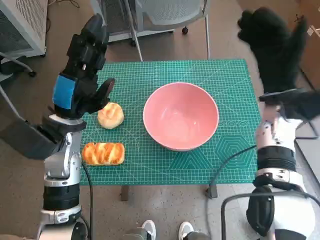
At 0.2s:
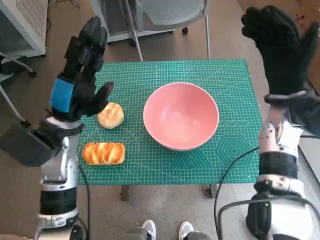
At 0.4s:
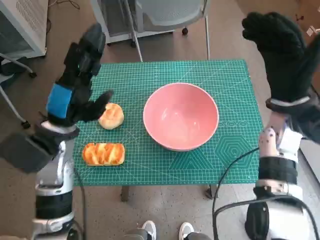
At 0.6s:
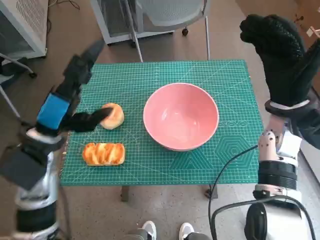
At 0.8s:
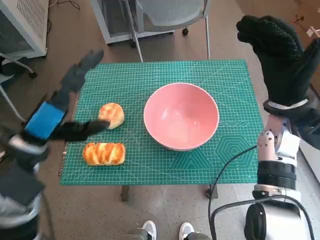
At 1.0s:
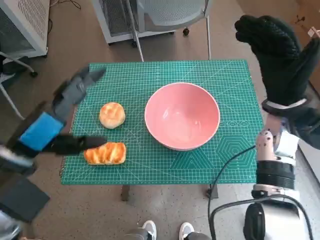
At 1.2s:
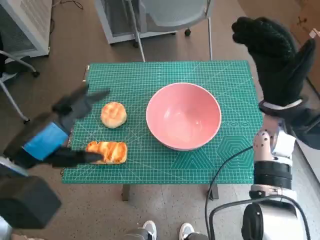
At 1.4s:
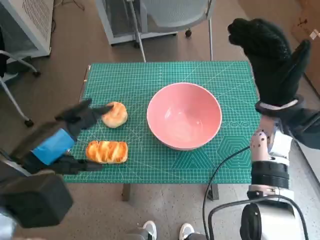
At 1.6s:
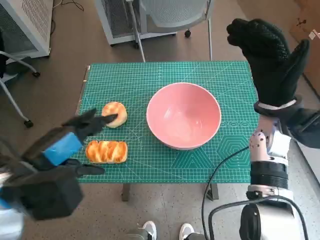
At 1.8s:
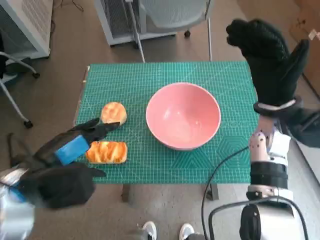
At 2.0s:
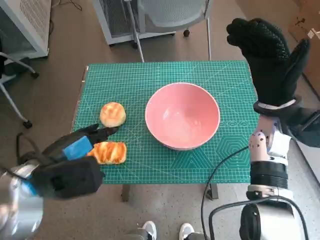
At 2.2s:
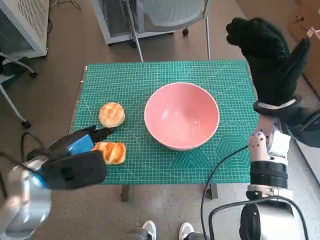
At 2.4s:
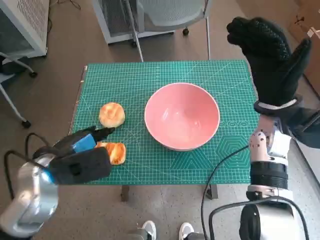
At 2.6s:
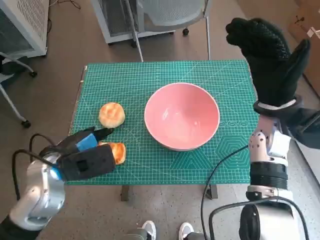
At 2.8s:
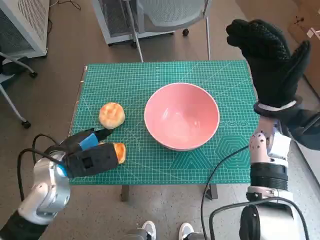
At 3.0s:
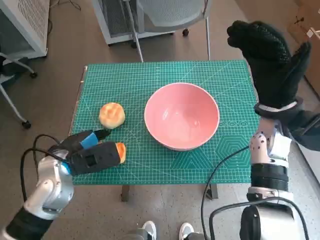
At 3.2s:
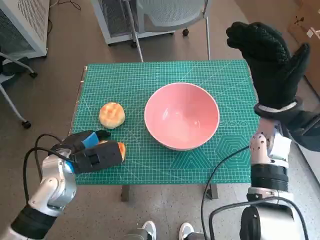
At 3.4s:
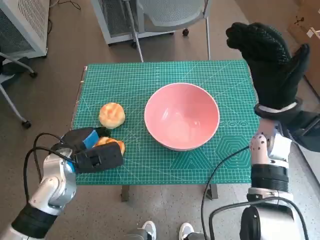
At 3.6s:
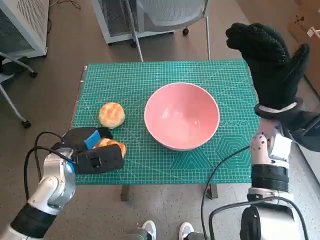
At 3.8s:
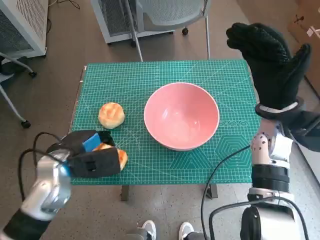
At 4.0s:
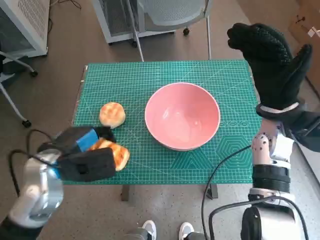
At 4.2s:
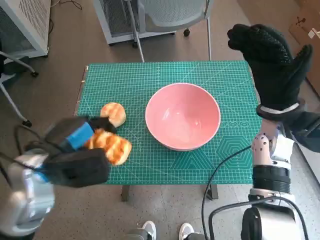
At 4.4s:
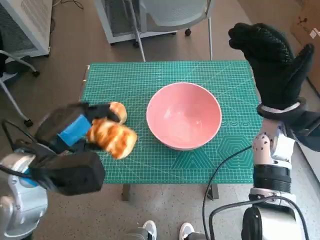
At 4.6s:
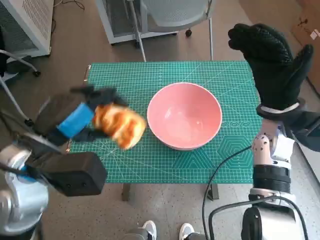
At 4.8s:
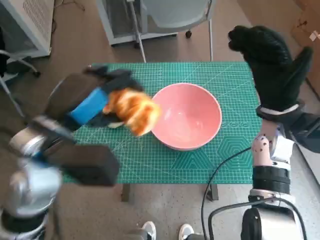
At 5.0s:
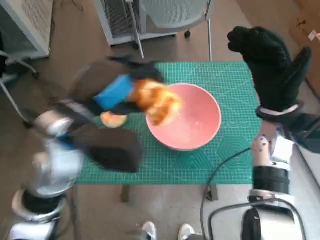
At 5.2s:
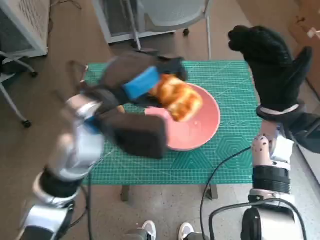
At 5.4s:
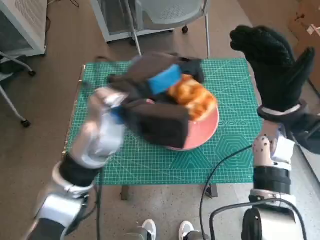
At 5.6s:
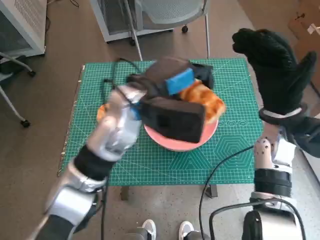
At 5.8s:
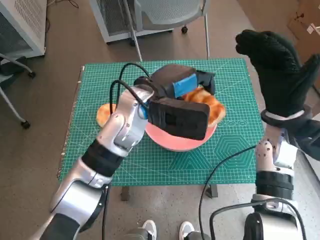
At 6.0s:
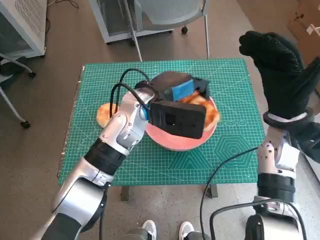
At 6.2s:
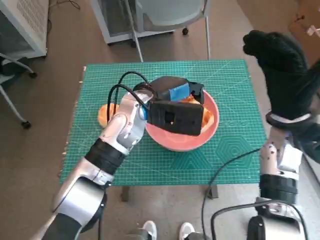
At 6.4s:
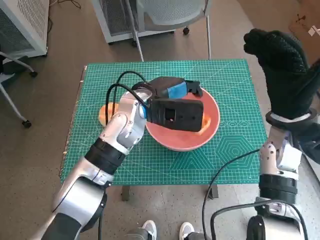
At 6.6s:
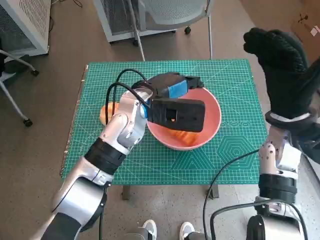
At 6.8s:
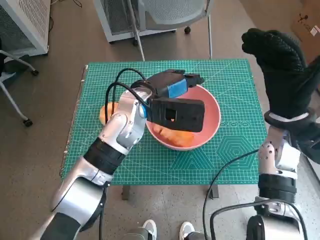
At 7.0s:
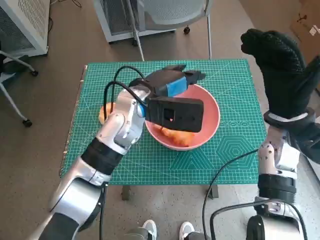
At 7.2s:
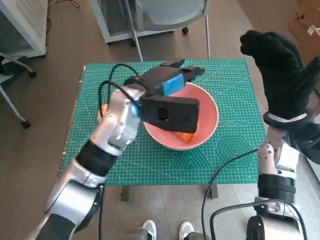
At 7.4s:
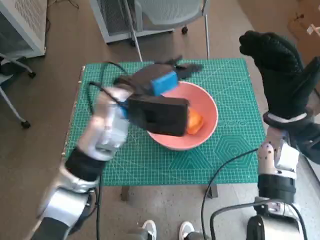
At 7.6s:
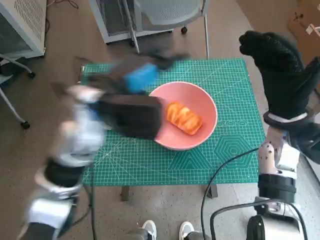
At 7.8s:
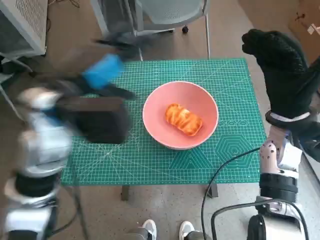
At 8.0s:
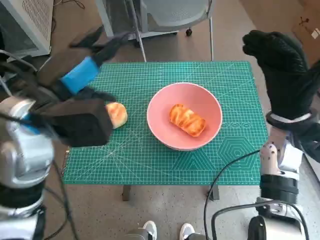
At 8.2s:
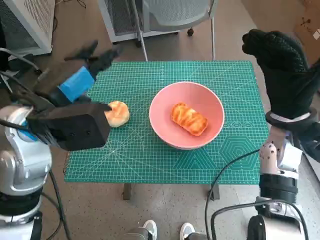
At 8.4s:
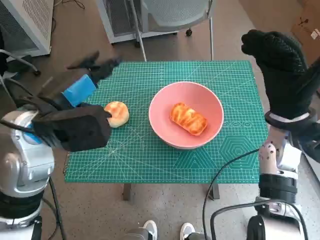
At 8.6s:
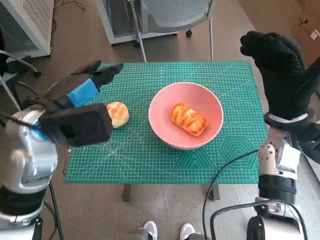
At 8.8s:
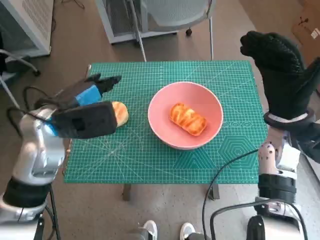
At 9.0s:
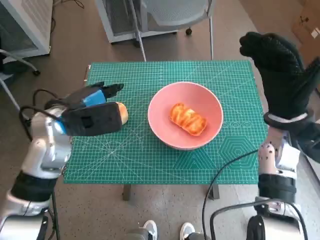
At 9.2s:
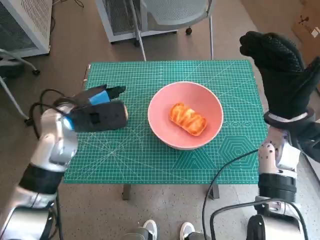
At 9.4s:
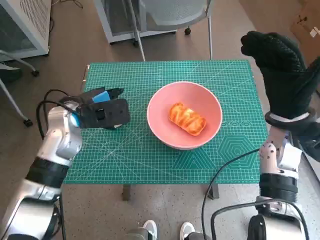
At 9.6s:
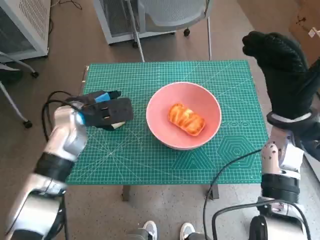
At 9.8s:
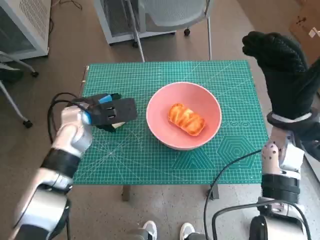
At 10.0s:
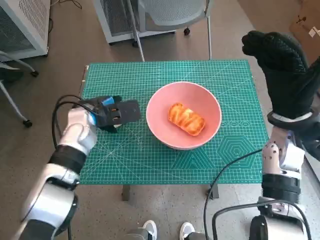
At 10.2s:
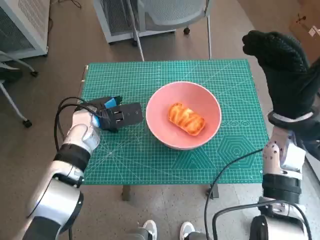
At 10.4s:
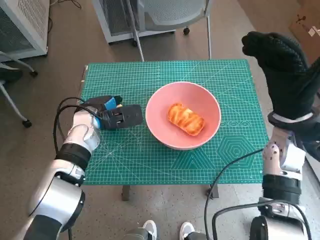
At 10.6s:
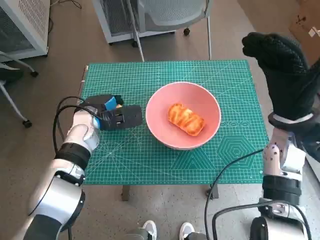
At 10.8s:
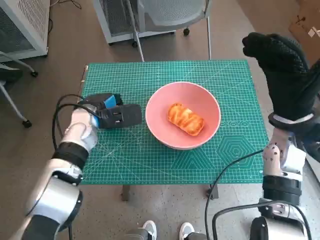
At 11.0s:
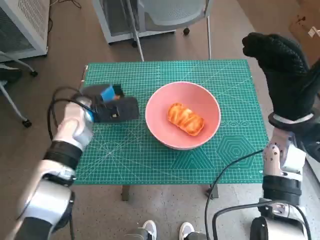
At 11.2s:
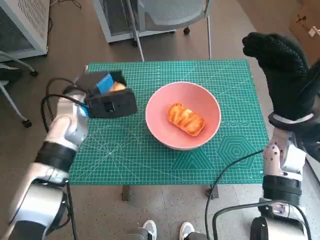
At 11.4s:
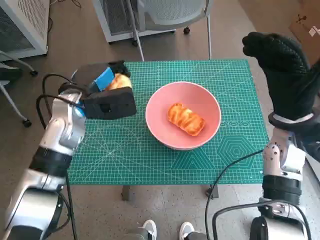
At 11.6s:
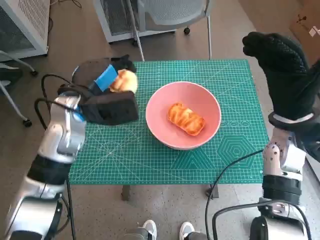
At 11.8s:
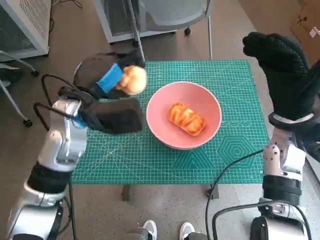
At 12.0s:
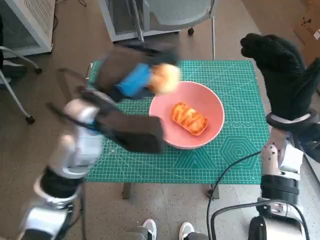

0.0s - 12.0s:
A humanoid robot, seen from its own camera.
Step, 0.0s - 3.2s: Grasp the long bread with left hand.
Step, 3.4s - 6.6s: Place the long bread in pink bowl with left hand.
Step, 6.8s - 10.6s: Grasp the round bread with left hand.
0.0s - 1.6s: The left hand shifts some 10 cm backward.
1.6s - 3.0s: The left hand heads downward and forward, covering about 10 cm.
3.0s - 4.4s: The left hand goes roughly 10 cm upward.
4.4s - 6.0s: The left hand heads to the right and forward, covering about 20 cm.
6.0s - 7.6s: The left hand is displaced to the left and upward by about 10 cm.
7.6s - 9.0s: The left hand is displaced to the left by approximately 10 cm.
9.0s - 10.4s: The left hand heads downward and forward, covering some 10 cm.
10.4s - 12.0s: The left hand heads upward, backward and to the right, covering some 15 cm.

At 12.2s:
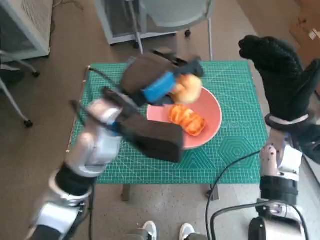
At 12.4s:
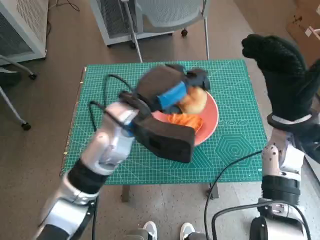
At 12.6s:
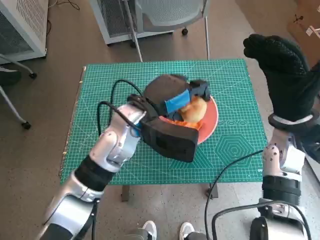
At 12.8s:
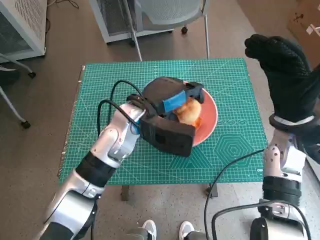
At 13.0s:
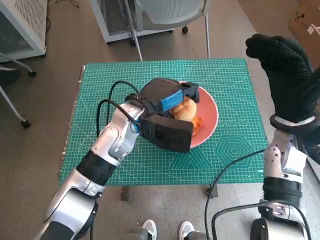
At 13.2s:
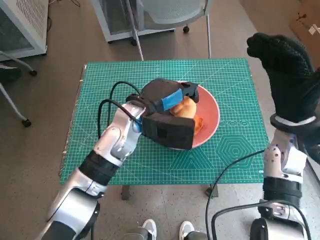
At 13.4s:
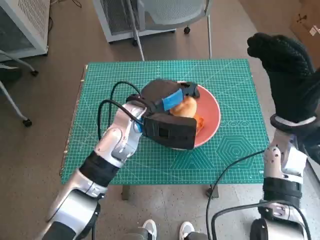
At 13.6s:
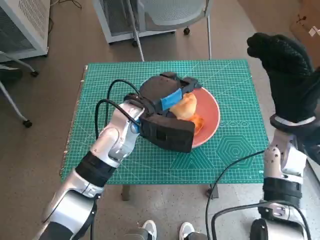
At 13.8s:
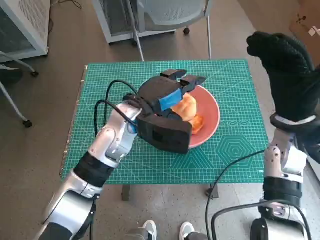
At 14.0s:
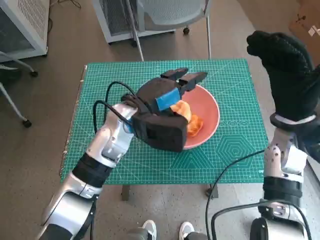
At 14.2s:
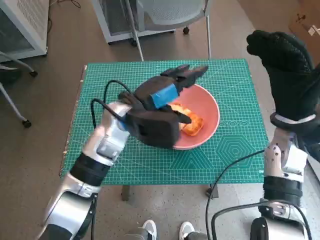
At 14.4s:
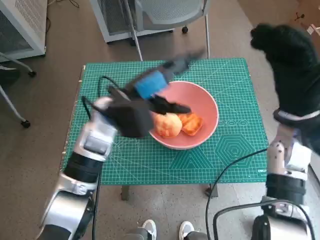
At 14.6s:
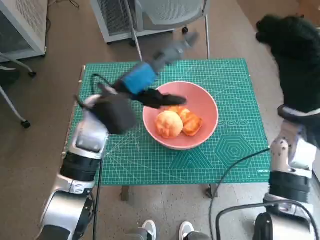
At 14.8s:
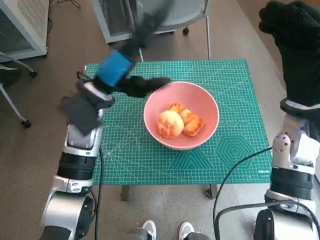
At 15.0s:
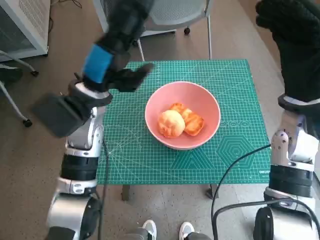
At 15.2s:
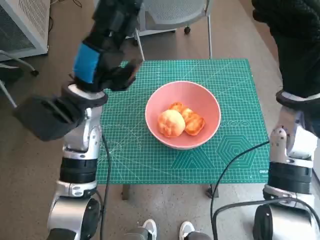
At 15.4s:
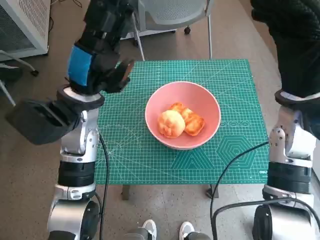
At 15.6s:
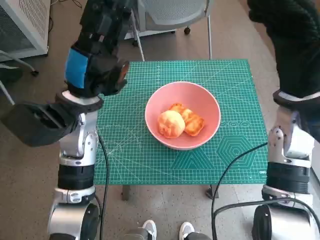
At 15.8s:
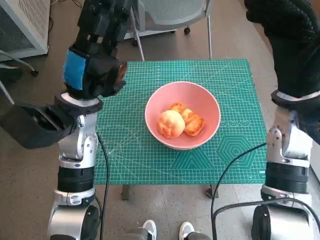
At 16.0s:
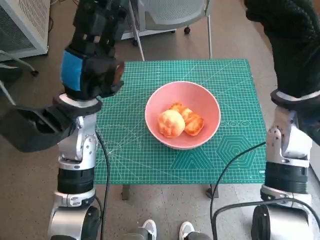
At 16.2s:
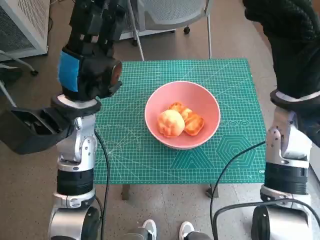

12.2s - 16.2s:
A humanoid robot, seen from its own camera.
Step, 12.2s - 13.8s: Place the round bread in pink bowl with left hand.
12.2s - 13.6s: The left hand goes about 5 cm downward.
13.6s - 14.8s: The left hand goes roughly 5 cm to the left.

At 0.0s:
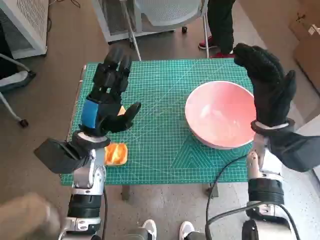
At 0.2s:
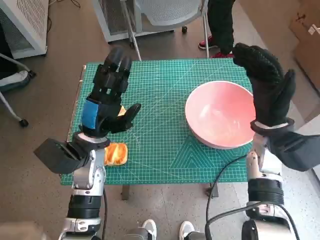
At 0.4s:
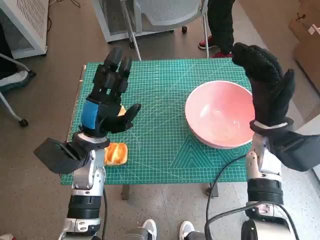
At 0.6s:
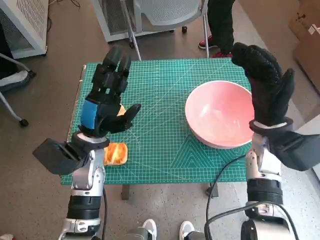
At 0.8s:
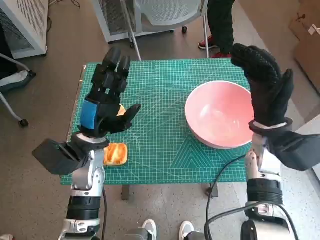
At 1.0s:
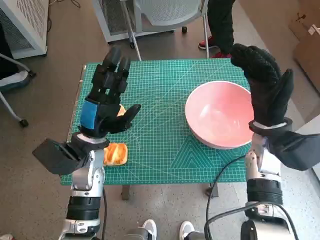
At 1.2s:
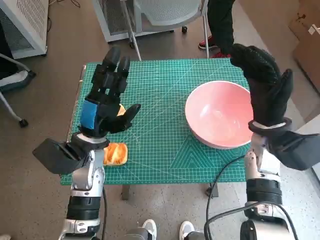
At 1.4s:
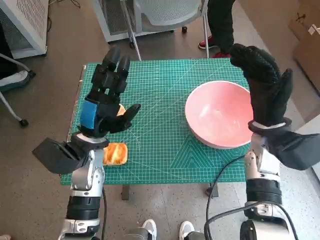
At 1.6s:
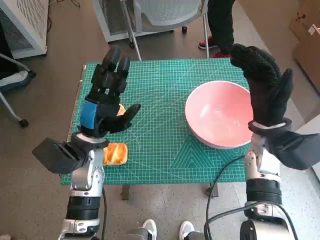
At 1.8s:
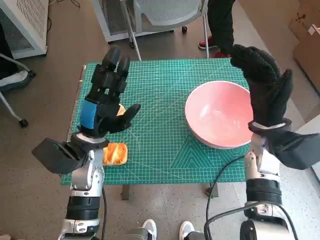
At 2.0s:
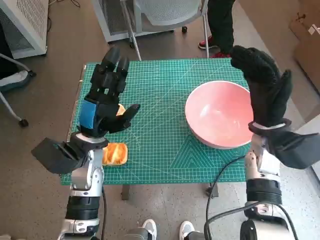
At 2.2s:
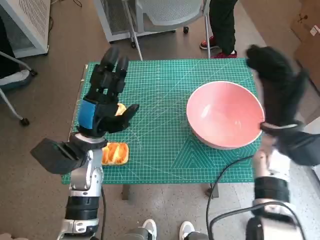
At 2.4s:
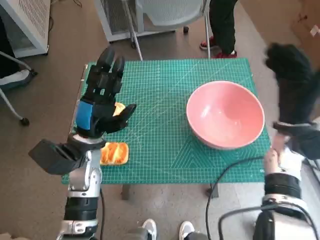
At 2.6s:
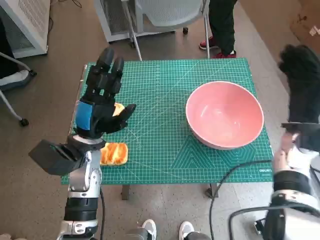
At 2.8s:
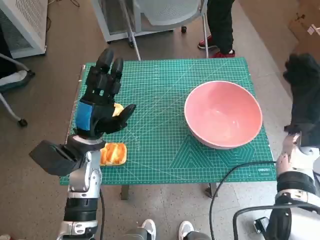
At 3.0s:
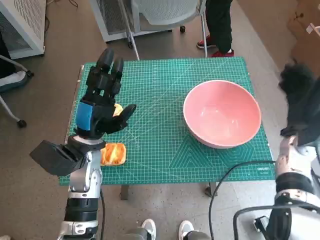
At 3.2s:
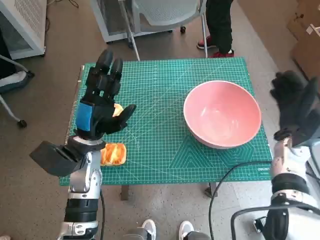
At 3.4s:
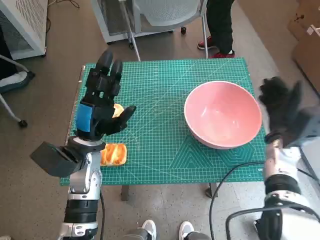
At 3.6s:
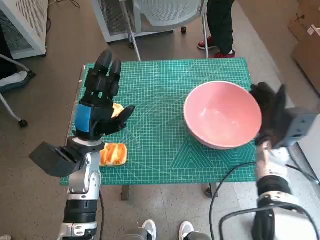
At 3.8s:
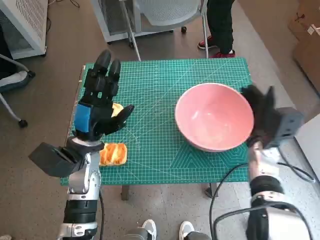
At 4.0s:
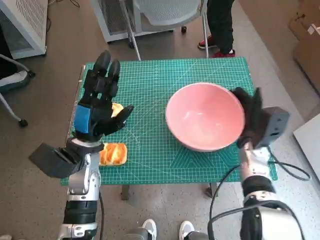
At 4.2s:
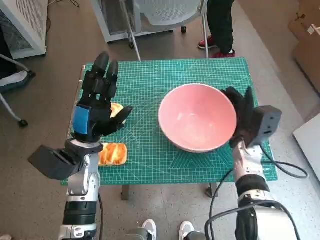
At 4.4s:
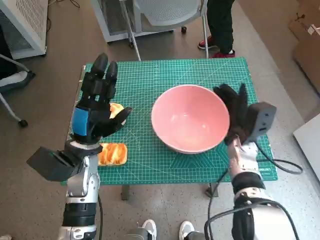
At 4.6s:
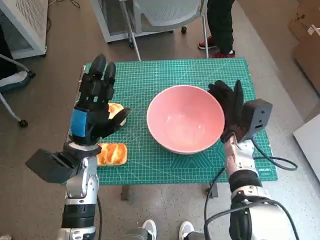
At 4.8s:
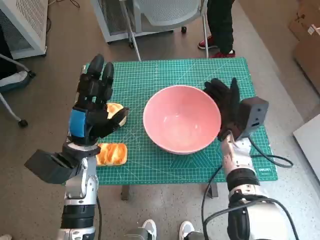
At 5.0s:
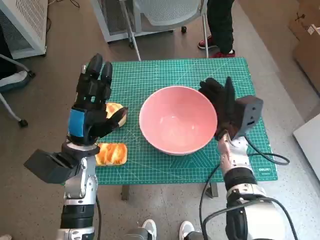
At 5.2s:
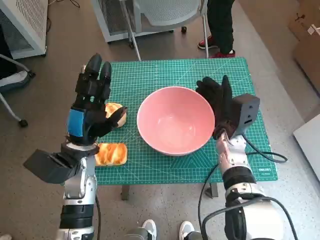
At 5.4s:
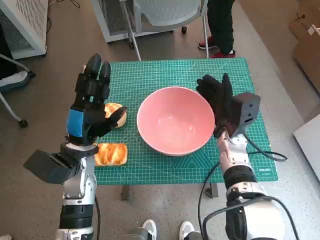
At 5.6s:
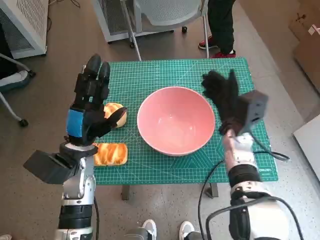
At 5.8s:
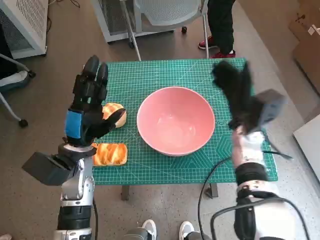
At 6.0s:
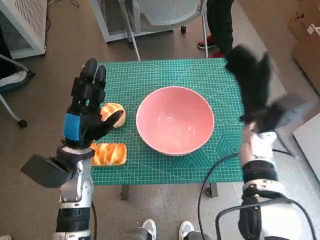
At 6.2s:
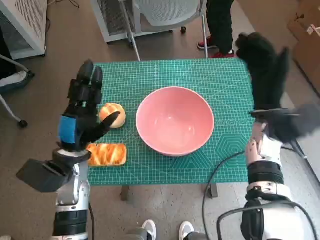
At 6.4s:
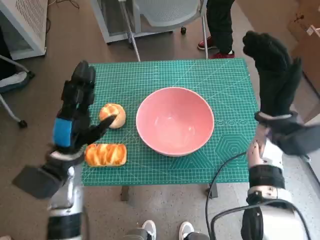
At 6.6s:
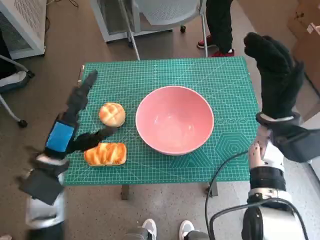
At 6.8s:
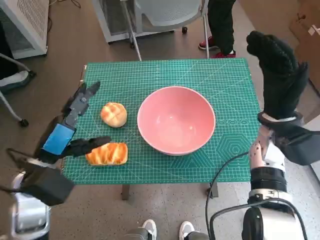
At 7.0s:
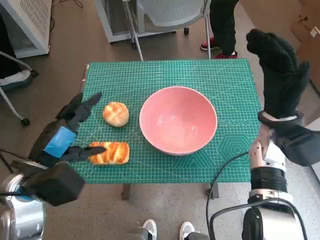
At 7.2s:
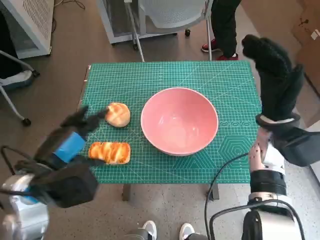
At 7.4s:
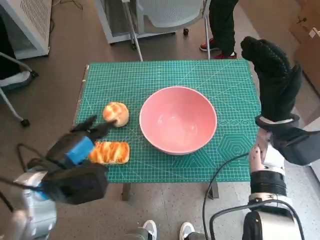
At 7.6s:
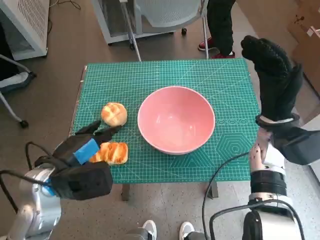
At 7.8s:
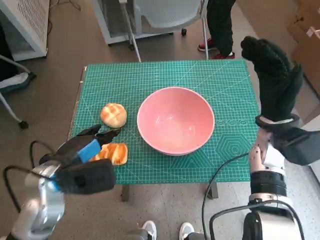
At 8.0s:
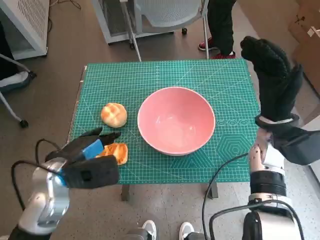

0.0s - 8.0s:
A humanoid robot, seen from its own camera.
Step, 0.0s - 5.4s: Move the pink bowl to the center of table with right hand.
1.6s - 3.2s: The right hand goes approximately 10 cm to the right and downward.
3.2s - 4.8s: The right hand is displaced to the left by approximately 10 cm.
4.8s - 6.4s: The right hand travels upward by about 10 cm.
